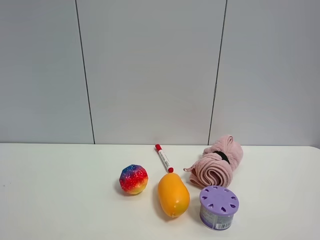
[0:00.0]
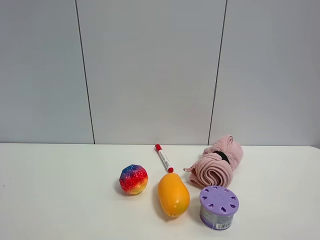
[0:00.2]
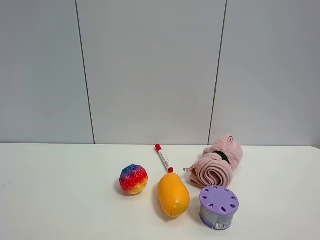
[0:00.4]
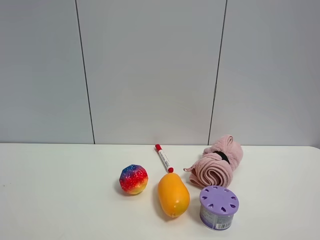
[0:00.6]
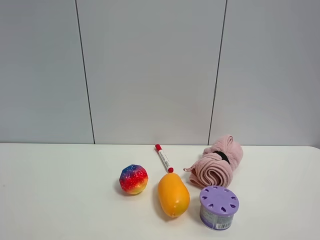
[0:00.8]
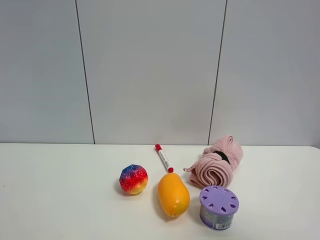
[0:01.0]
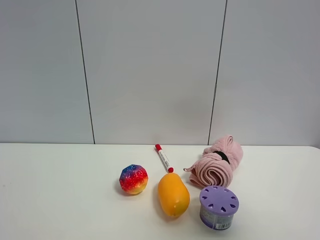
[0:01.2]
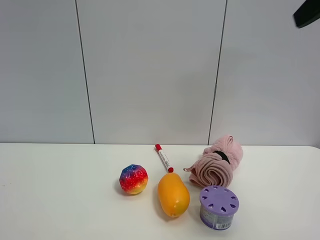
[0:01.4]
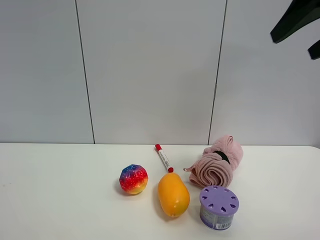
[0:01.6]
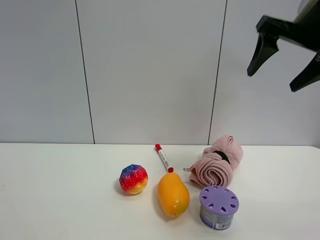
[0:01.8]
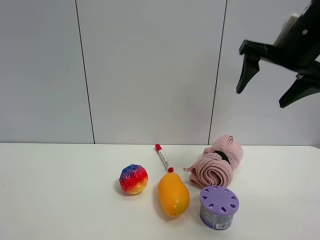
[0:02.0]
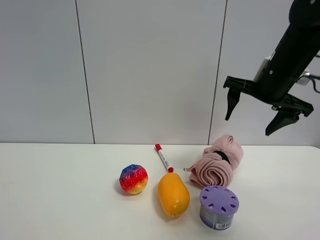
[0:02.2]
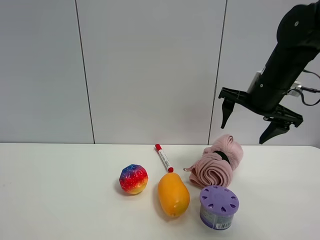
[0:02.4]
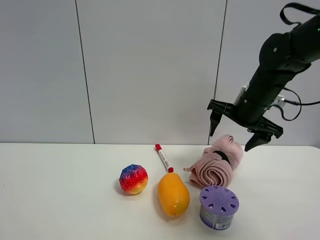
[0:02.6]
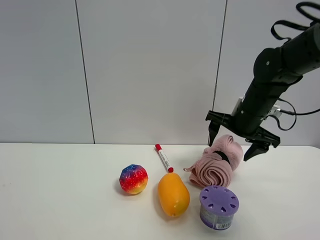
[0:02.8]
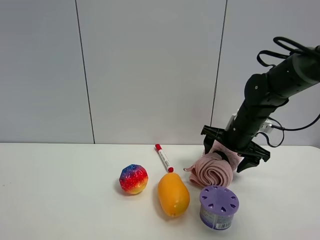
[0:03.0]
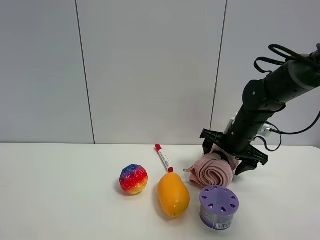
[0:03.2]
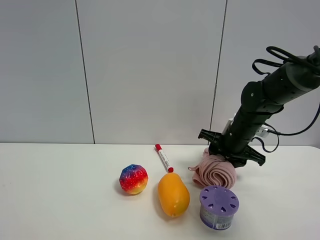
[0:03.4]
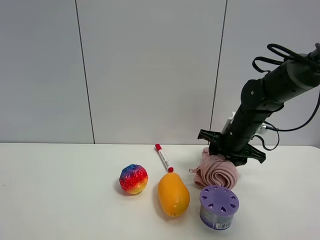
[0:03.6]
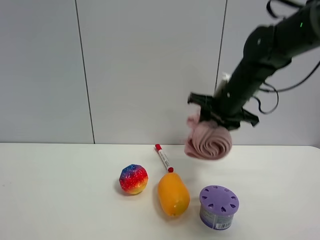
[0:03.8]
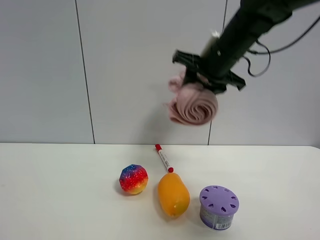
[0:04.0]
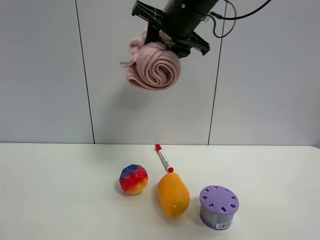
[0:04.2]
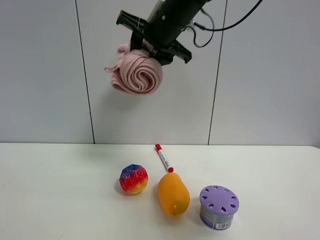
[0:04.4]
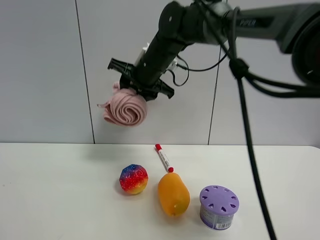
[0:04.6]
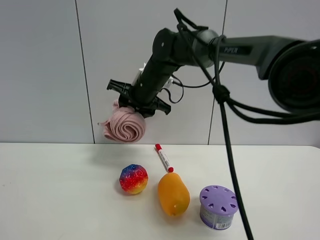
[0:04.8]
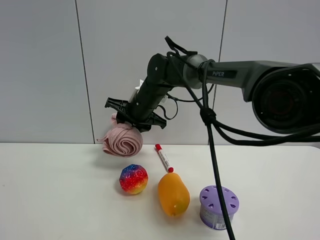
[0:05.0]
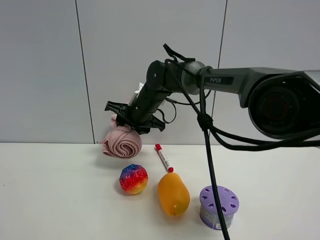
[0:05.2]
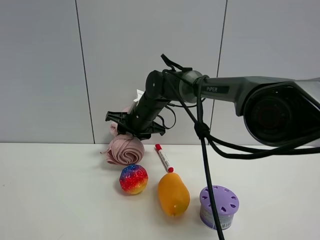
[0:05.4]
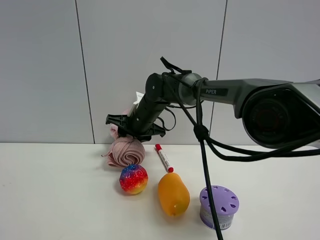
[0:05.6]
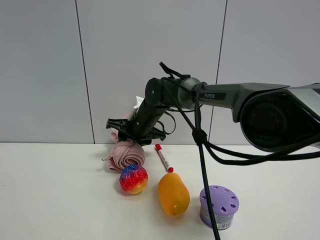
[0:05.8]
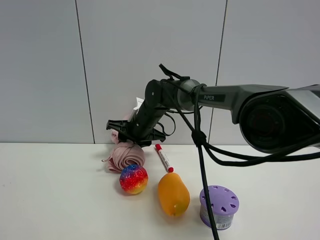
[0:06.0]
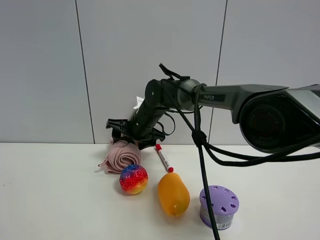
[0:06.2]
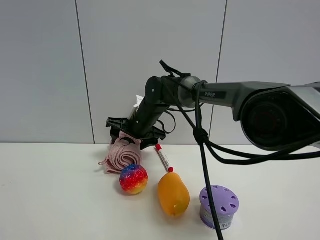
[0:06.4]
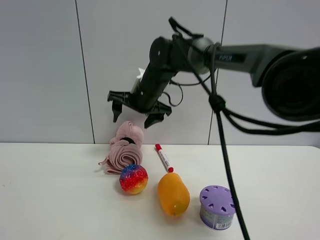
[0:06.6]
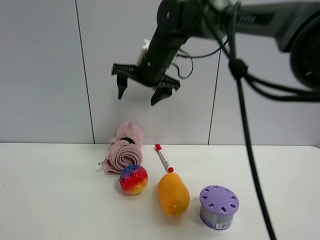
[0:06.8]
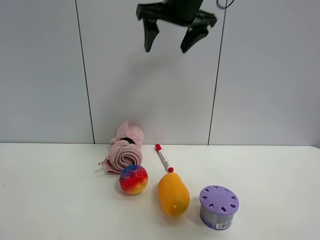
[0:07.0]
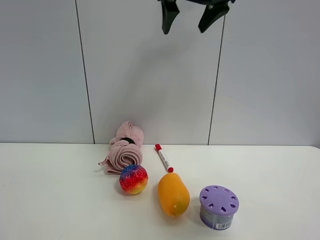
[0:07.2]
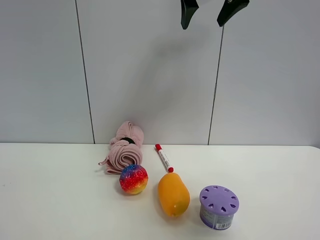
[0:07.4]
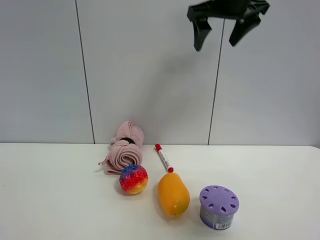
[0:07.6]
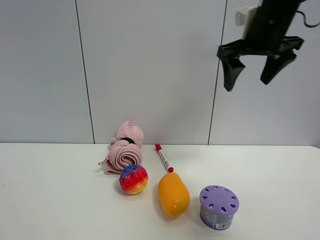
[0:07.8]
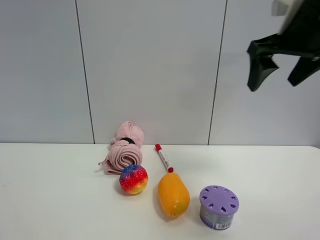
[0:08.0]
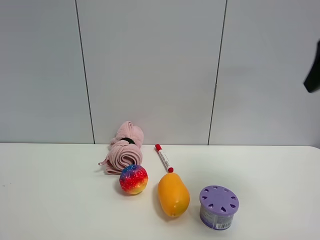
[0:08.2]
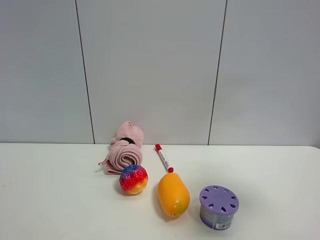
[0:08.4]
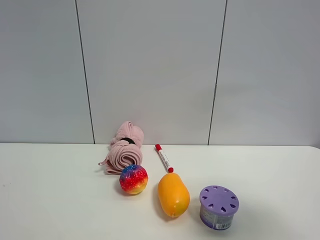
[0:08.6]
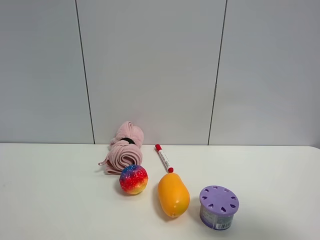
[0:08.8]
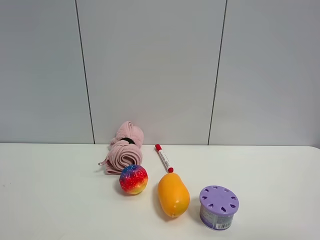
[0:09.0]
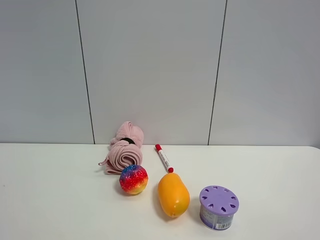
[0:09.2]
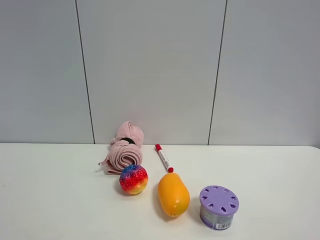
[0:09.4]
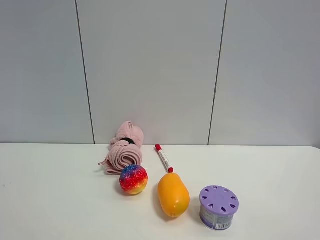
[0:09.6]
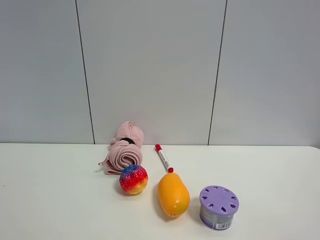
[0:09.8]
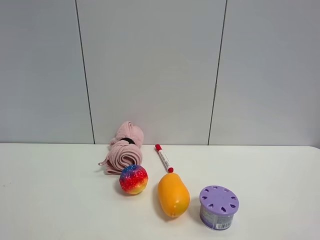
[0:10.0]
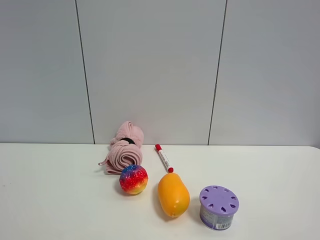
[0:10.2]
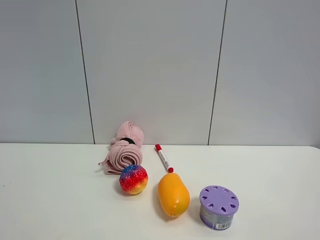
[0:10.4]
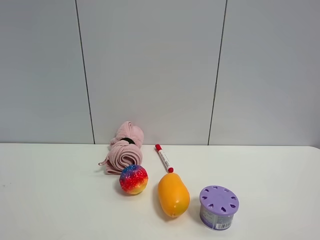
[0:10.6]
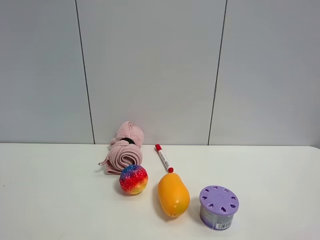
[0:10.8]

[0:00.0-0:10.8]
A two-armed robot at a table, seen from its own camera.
Task of the whole recording: the gripper move the object.
Step, 0:00.0 to 0:03.4: Grasp the pink towel with the right gripper.
Step, 0:03.6 to 0:06.6: Place the pink towel on the table with the right gripper.
0:00.0 to 0:01.6: The right gripper travels forward and upward by approximately 30 cm.
0:01.6 to 0:03.0: The right gripper shifts roughly 30 cm downward and forward.
0:03.0 to 0:04.6: The right gripper moves to the left and upward, some 25 cm, and closes.
0:04.6 to 0:06.2: The right gripper travels downward by some 15 cm, and opens up.
0:06.2 to 0:07.8: The right gripper goes about 35 cm to the right, upward and backward.
0:07.8 to 0:09.2: The right gripper goes about 35 cm backward.

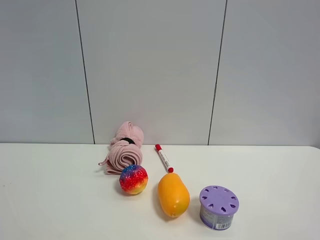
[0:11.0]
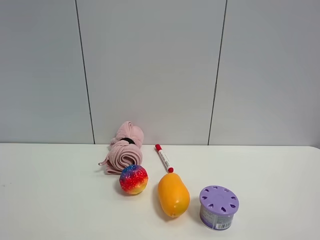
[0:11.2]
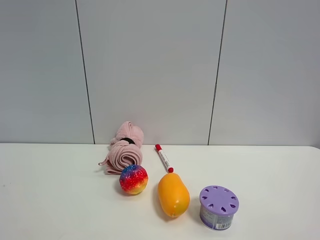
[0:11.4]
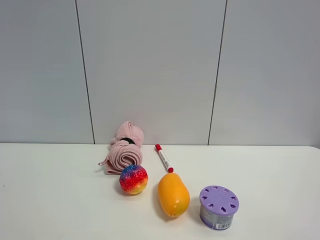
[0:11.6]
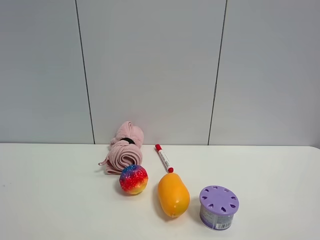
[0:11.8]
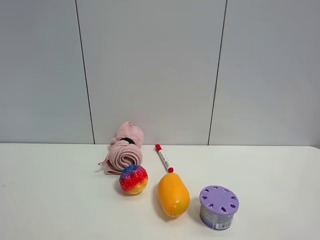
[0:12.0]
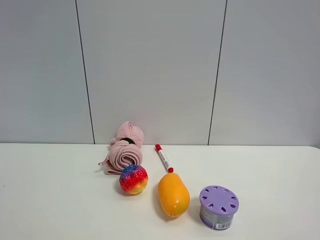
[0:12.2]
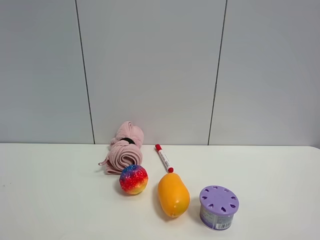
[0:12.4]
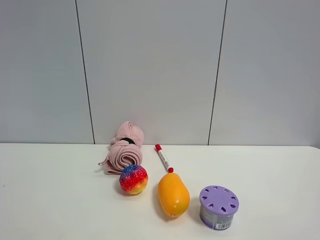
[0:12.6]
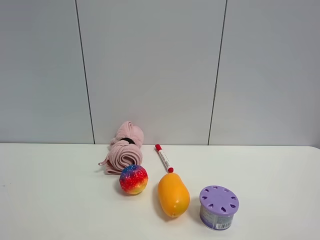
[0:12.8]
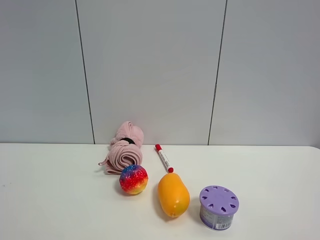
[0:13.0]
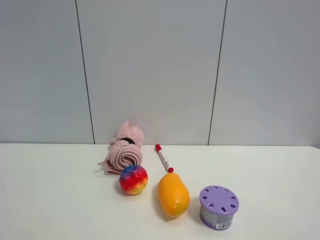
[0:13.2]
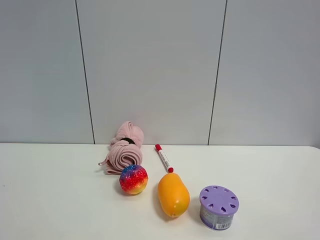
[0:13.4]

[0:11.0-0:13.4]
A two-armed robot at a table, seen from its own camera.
Task of the whole recording: the gripper move the object.
0:11.0 to 0:13.4: Both grippers stay put.
